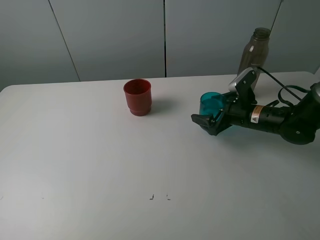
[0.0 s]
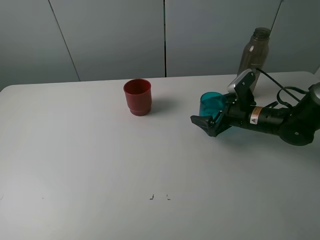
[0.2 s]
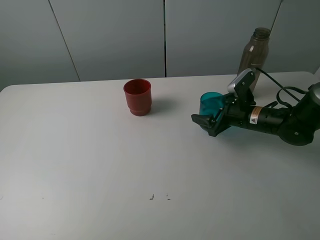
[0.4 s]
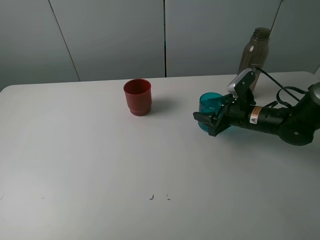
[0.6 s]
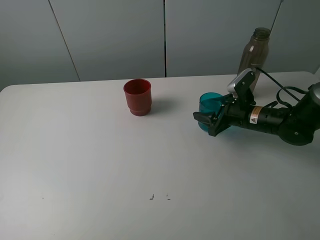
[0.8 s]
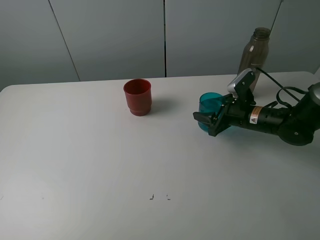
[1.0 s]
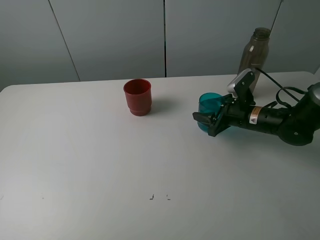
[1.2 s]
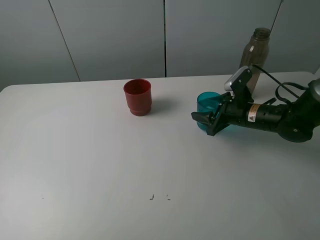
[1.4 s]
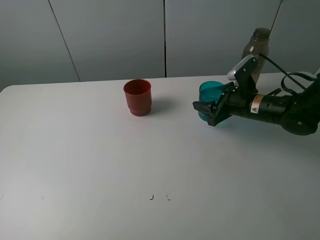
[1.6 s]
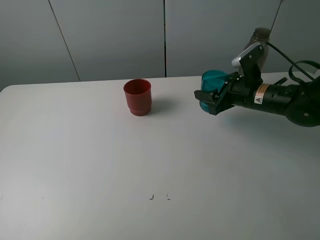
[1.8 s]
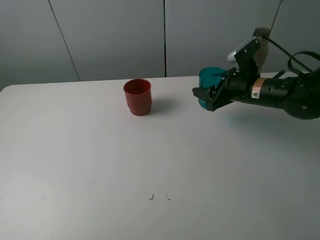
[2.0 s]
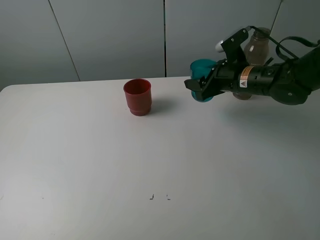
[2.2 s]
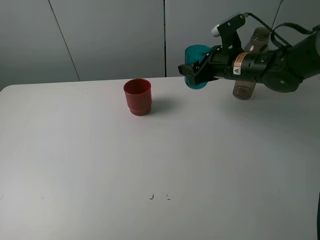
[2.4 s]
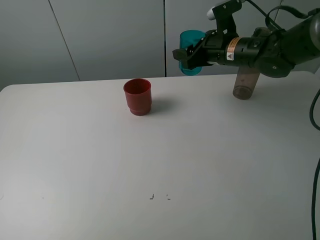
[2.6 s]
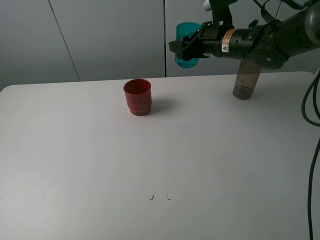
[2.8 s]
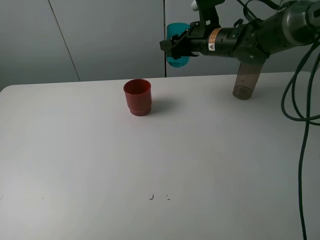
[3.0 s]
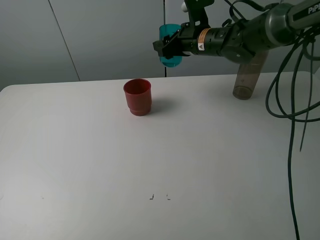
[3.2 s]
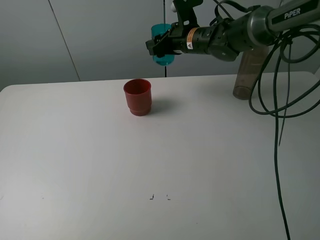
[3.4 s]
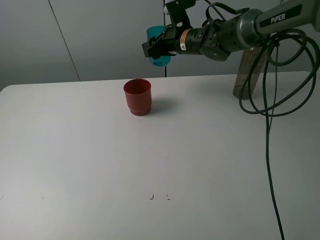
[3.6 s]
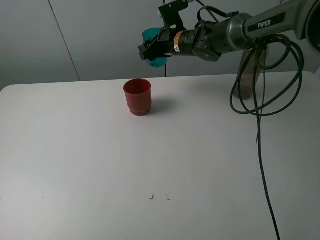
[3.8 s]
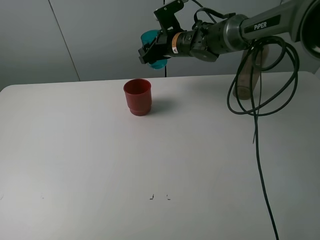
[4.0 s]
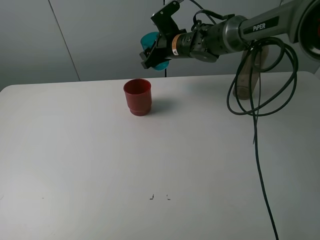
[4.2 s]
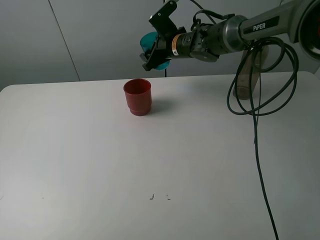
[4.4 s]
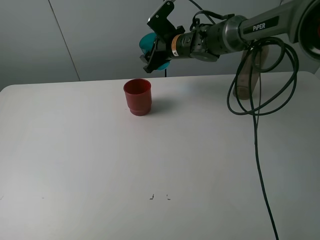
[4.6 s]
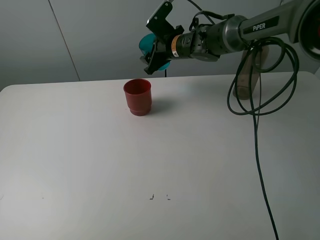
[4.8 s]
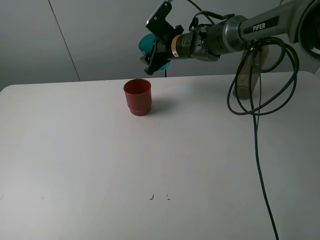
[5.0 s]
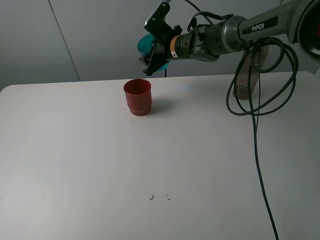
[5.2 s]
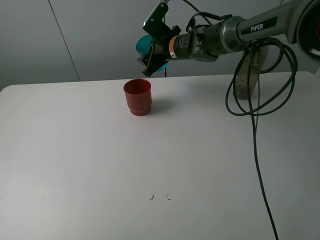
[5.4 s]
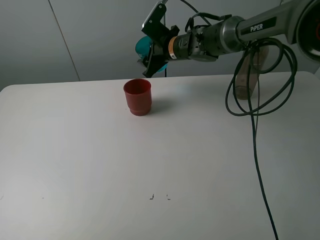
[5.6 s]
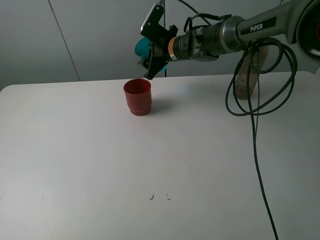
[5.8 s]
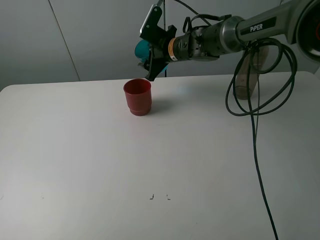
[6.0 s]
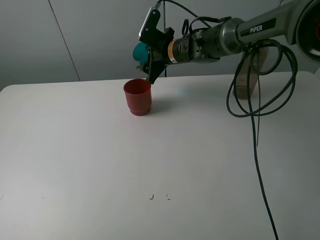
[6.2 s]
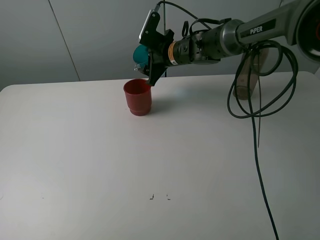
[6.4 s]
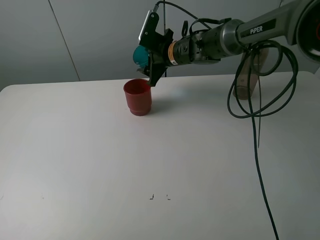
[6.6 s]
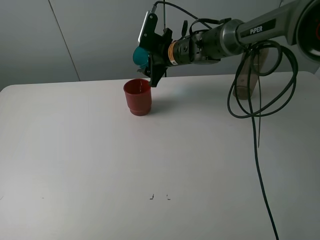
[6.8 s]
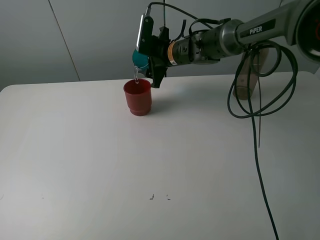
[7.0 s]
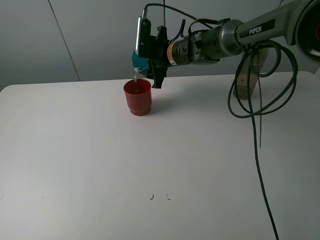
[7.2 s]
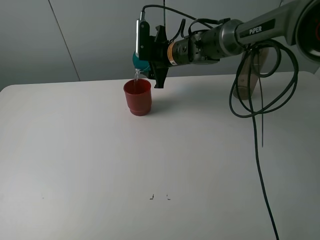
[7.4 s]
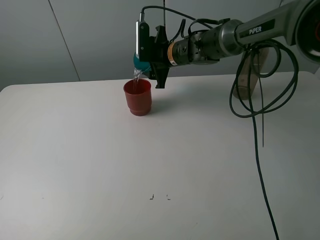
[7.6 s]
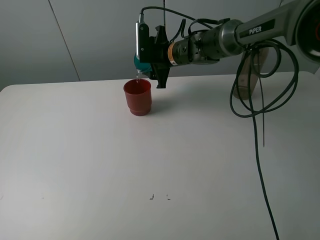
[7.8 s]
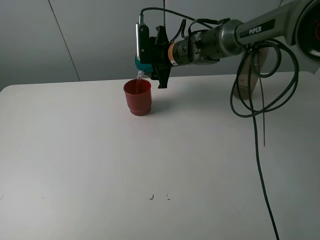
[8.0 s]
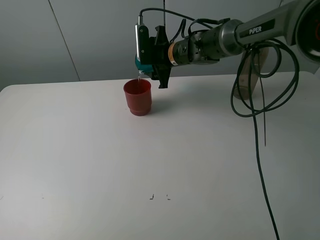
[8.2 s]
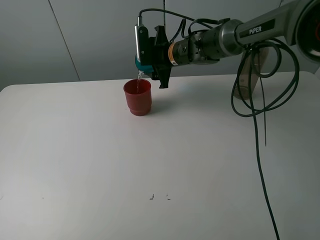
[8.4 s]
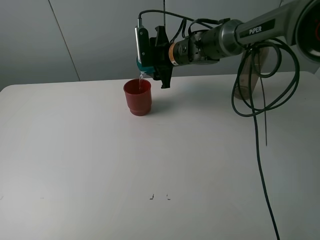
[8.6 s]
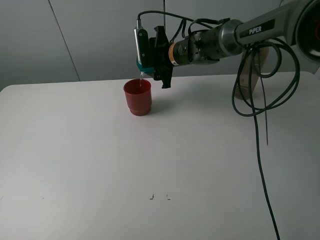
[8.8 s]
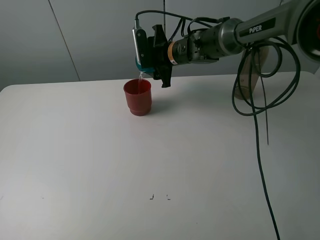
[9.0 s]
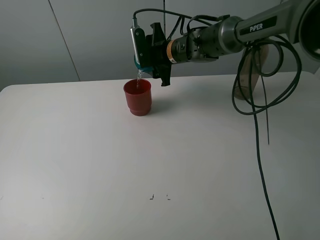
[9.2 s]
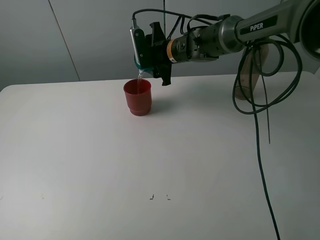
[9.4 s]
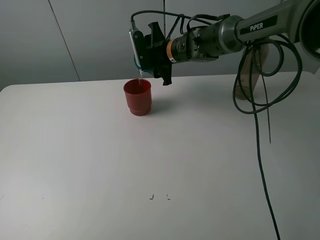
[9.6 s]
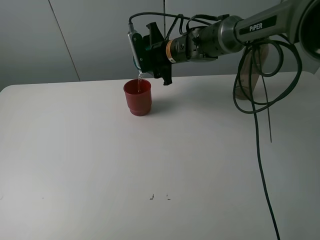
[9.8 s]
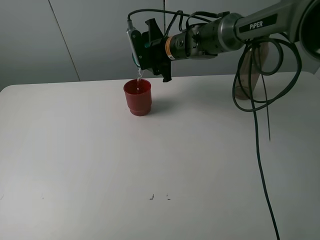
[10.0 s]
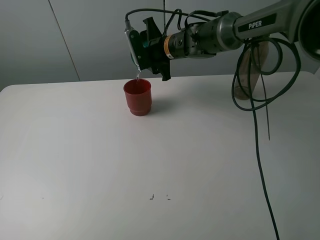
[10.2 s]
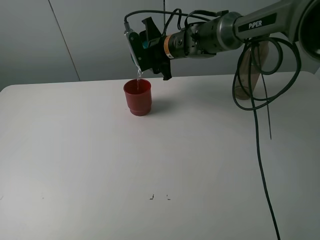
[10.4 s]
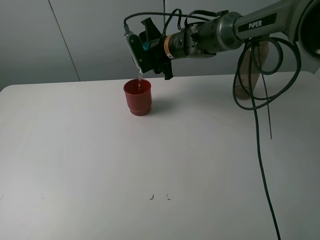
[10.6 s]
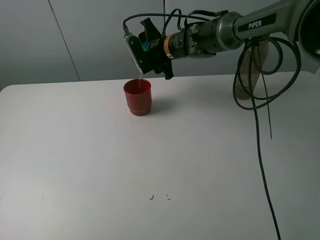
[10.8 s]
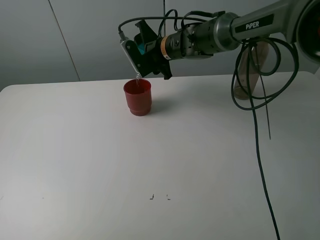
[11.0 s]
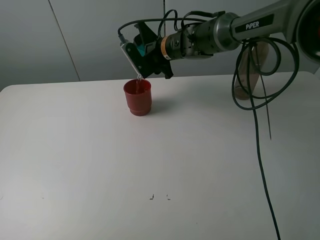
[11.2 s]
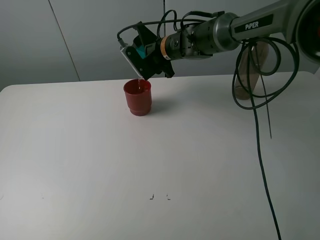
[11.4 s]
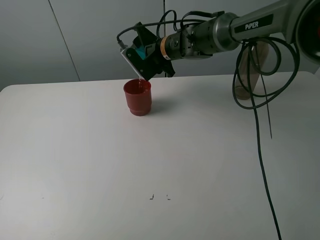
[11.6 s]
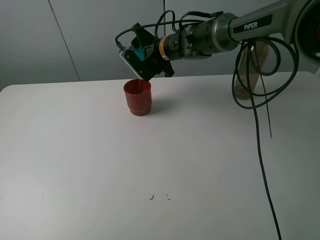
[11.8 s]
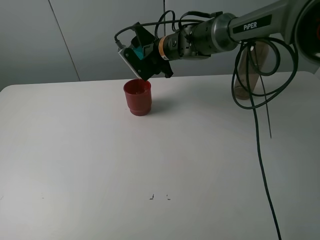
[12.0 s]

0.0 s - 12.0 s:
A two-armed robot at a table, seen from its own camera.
Task of the whole recording: pick up the bottle and pour water into the cup, then pick up the cup containing water and pour it into another cup.
0.0 s - 1.6 s: The right gripper closes its fingers.
1.6 s - 3.0 s: The right gripper goes about 15 cm upward, to the left and forward.
3.0 s - 4.4 s: The right gripper travels to the left by approximately 5 cm.
4.4 s - 6.0 s: There are only small adjustments of the grippers.
7.6 s - 9.0 s: There are only small adjustments of the grippers.
9.0 s - 10.4 s: The grippers make only small movements.
10.4 s - 12.0 s: The grippers move only a little.

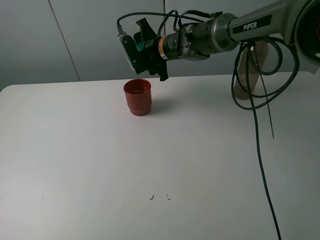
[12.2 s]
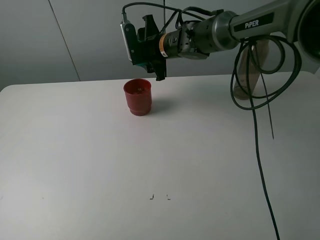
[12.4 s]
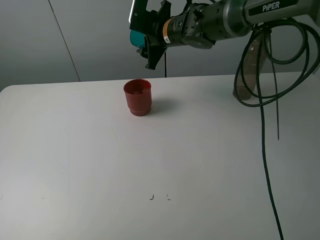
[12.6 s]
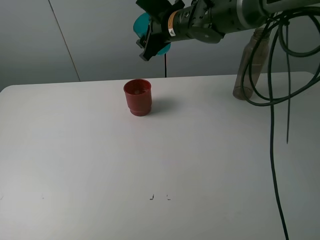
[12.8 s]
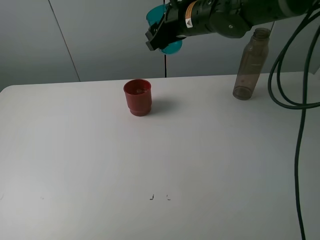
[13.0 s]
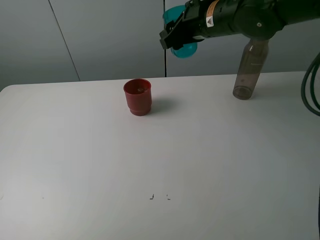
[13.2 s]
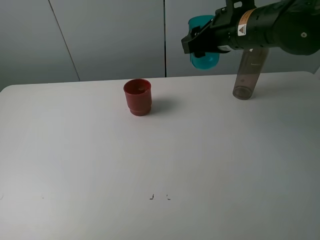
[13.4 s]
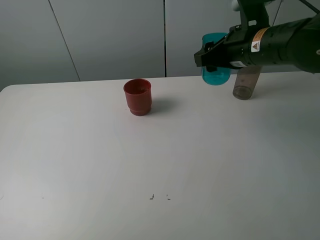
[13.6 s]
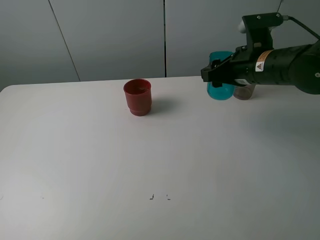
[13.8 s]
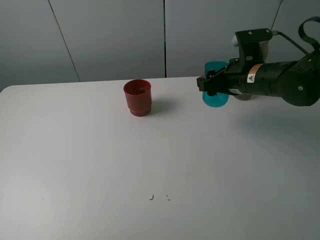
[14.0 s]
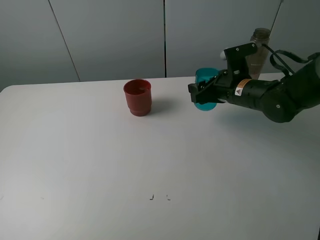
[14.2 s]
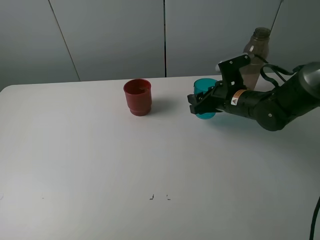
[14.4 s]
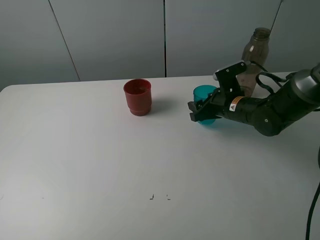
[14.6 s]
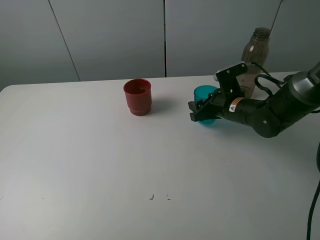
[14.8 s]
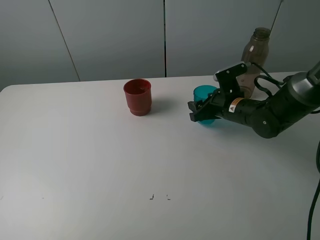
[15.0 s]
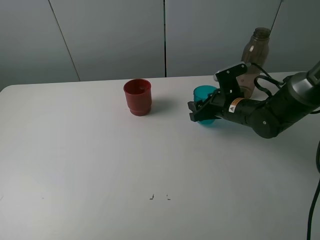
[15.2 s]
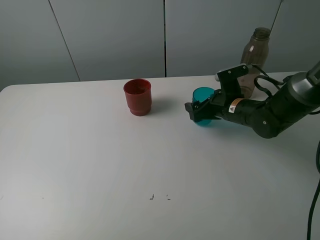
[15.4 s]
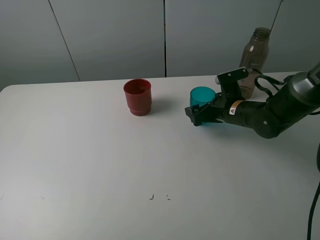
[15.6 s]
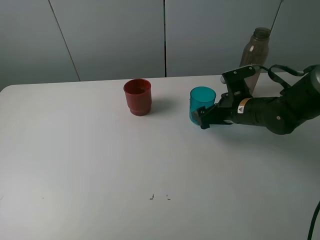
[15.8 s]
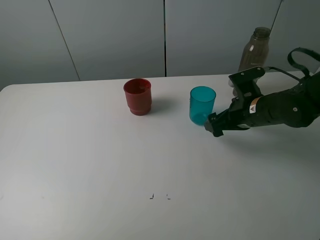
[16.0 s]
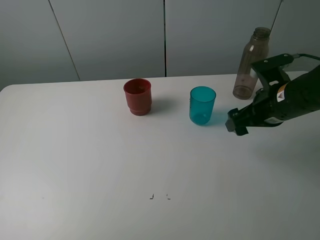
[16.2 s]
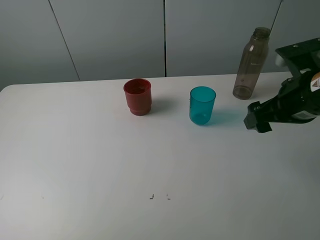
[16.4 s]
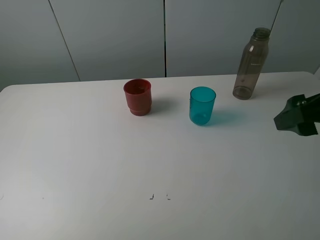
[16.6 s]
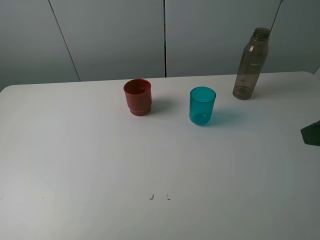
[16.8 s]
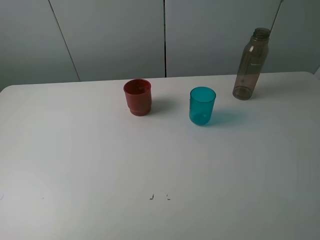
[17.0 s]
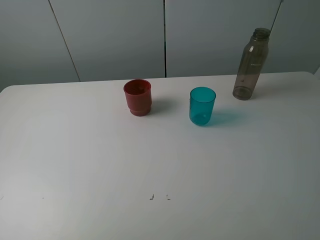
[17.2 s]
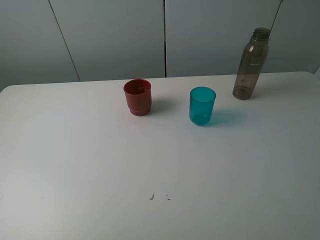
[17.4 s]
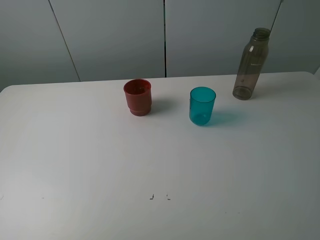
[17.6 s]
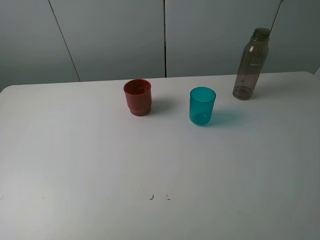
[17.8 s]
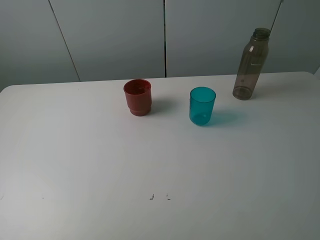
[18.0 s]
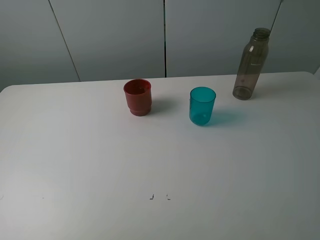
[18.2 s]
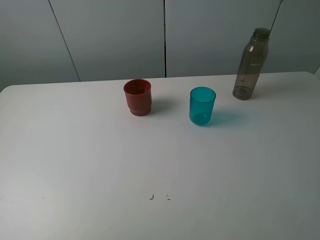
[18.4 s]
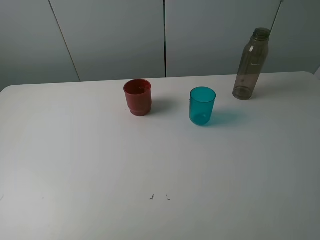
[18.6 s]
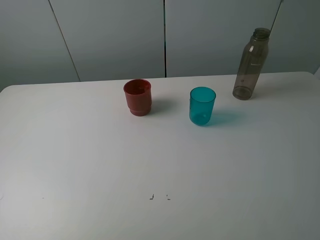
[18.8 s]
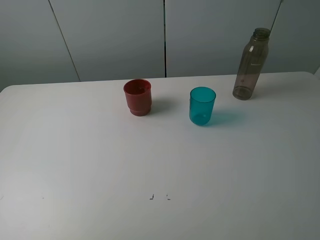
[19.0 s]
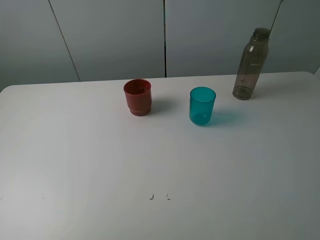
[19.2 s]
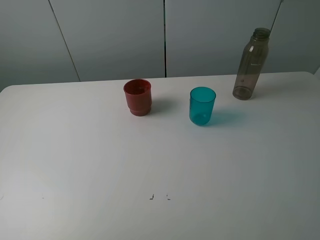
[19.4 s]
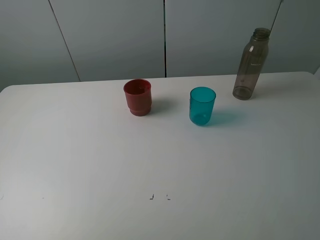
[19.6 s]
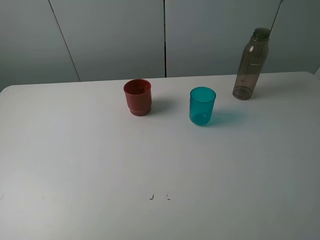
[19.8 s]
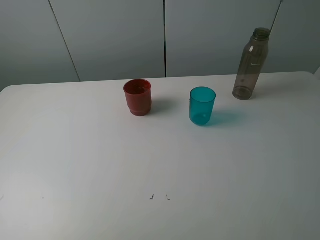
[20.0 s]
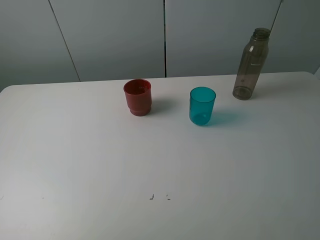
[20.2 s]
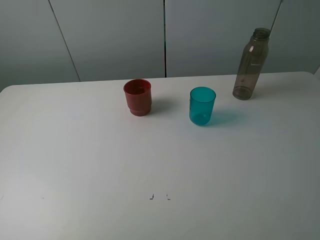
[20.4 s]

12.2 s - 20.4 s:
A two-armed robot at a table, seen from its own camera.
Task of the whole recording: pick up the bottle and pour water into the cup, then pick up the cup containing water and pour it into another cup.
Step, 12.4 s - 15.6 s: Place the blue cup with the right gripper.
12.2 s - 13.8 s: The right gripper shifts approximately 20 cm to the right and backward.
13.8 s - 15.4 s: The right gripper moves downward, roughly 10 cm, and opens up.
15.4 s - 17.2 s: The right gripper heads backward and upward, covering about 40 cm.
18.8 s - 20.4 s: Neither gripper changes place.

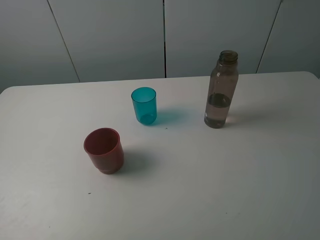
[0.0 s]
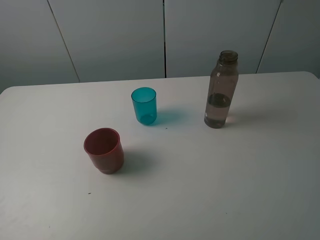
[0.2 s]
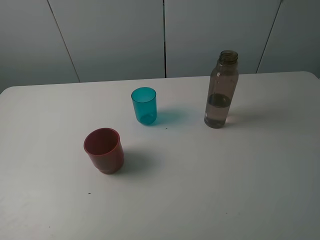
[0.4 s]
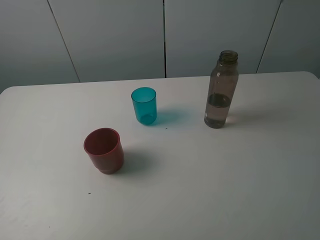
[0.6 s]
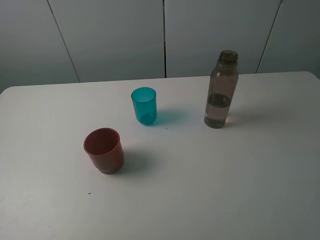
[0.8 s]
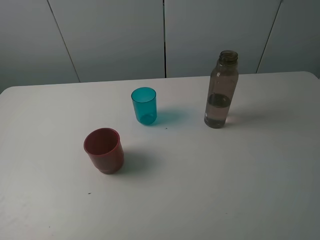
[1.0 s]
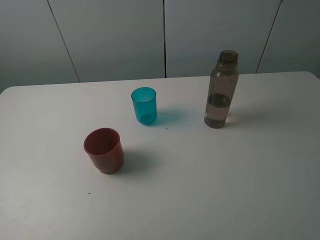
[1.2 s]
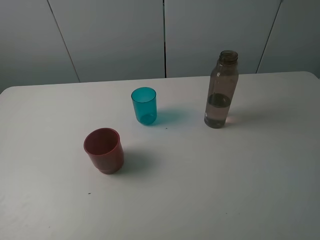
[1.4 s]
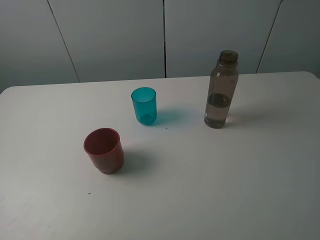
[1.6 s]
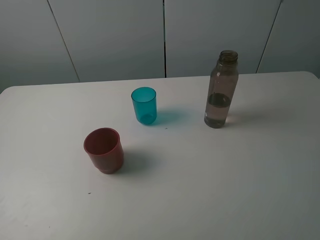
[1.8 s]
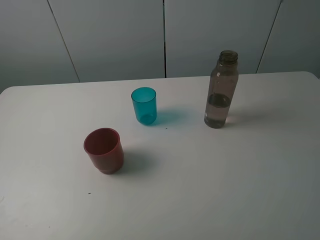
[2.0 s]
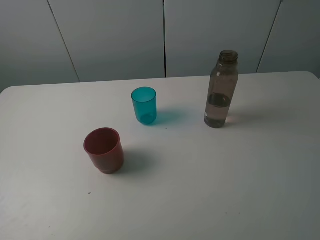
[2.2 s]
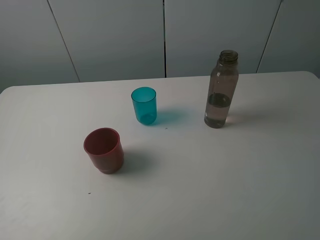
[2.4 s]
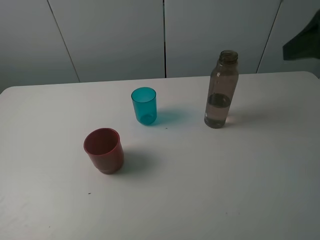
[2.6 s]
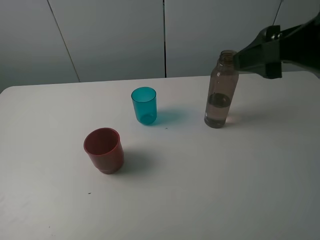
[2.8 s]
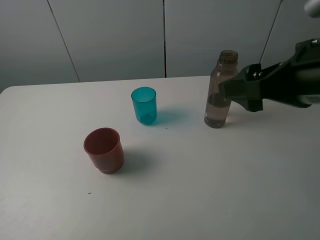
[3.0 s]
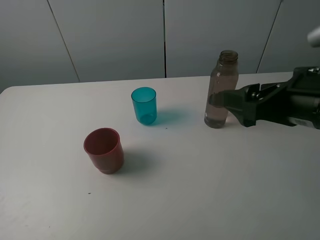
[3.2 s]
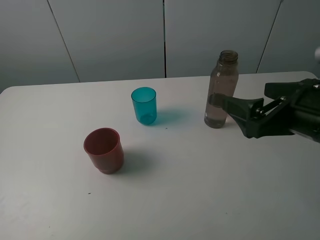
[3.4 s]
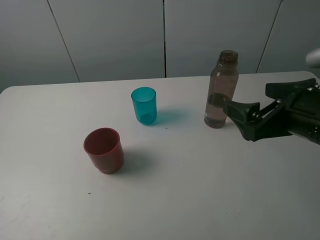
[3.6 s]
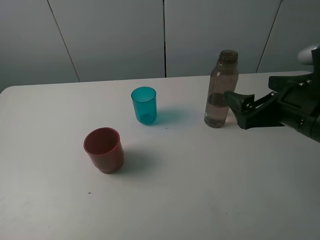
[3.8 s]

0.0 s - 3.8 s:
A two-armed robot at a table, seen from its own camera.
Task of the whole recording: pick up the bottle and pour water into the cup, then pick up the cup containing water and pour it into another cup.
0.0 s - 1.2 s: Both grippers stay put.
1.2 s - 2.6 s: The right gripper goes some 15 cm forward.
2.6 s - 3.8 s: The right gripper shifts roughly 15 cm downward.
